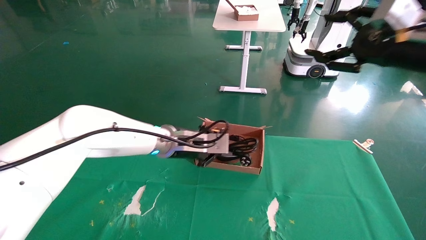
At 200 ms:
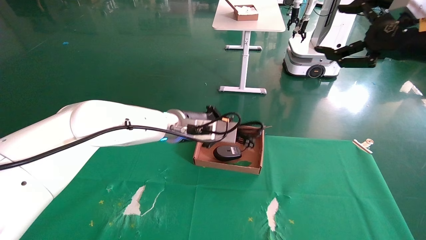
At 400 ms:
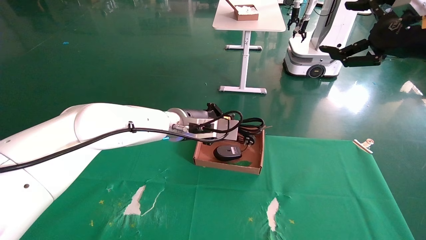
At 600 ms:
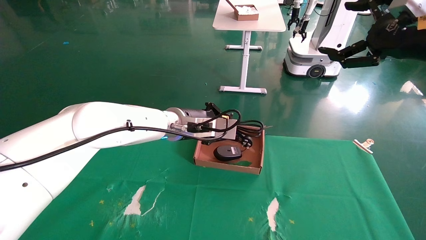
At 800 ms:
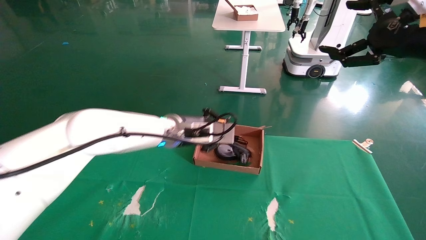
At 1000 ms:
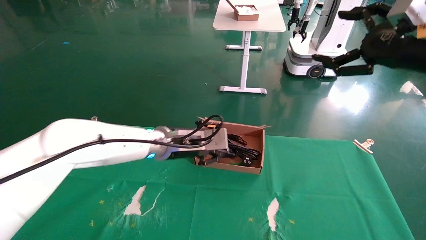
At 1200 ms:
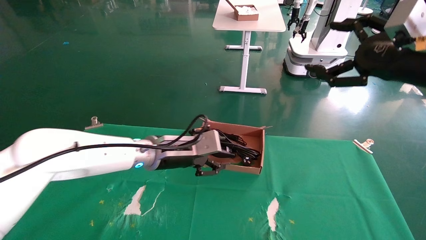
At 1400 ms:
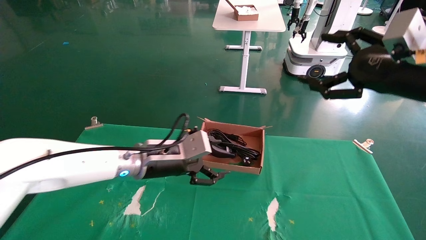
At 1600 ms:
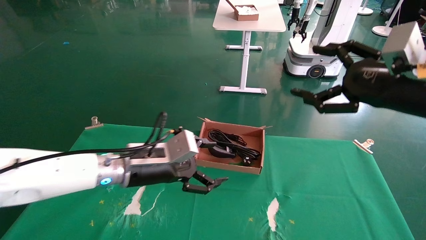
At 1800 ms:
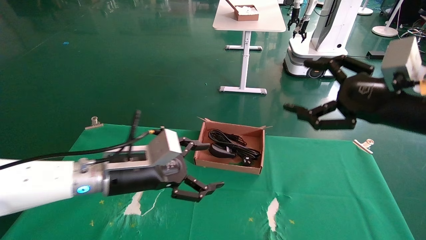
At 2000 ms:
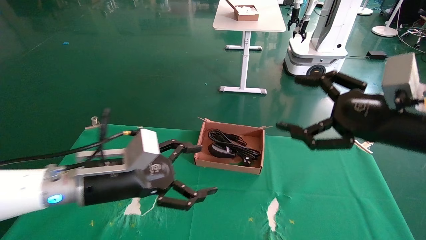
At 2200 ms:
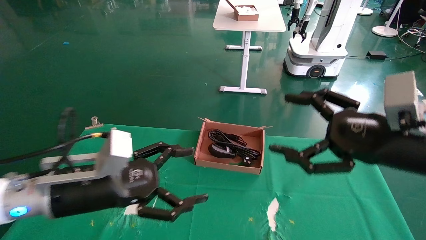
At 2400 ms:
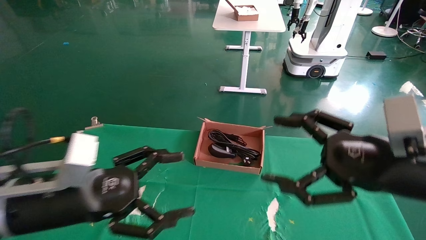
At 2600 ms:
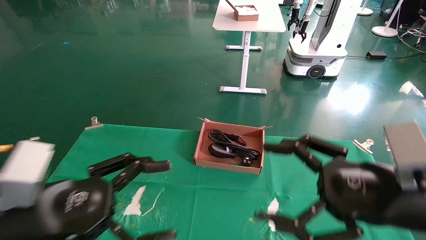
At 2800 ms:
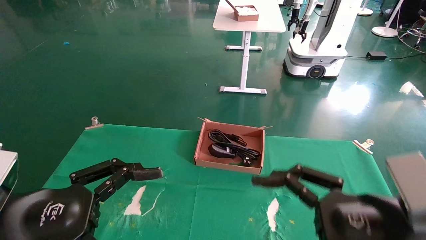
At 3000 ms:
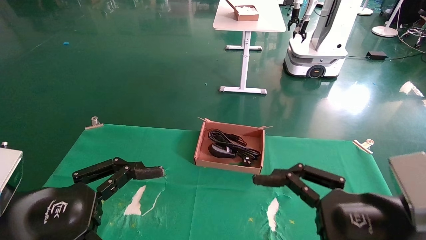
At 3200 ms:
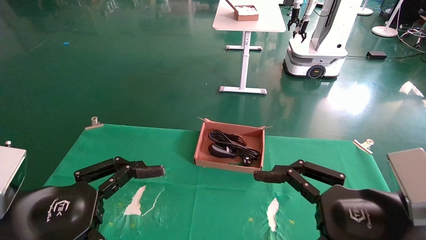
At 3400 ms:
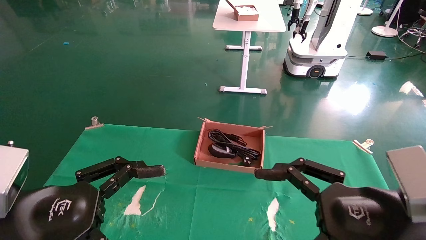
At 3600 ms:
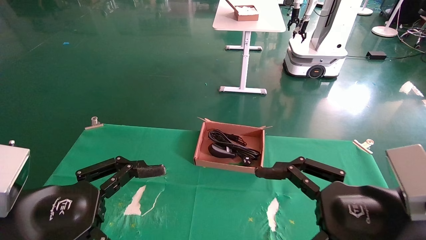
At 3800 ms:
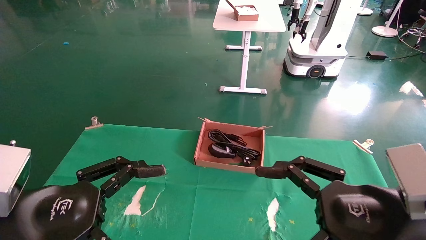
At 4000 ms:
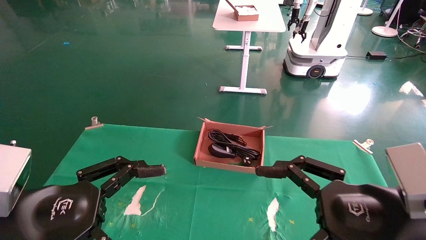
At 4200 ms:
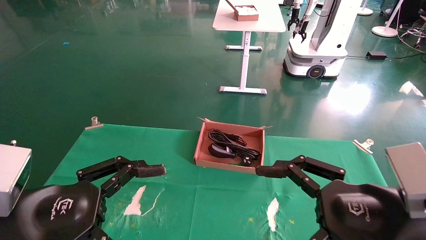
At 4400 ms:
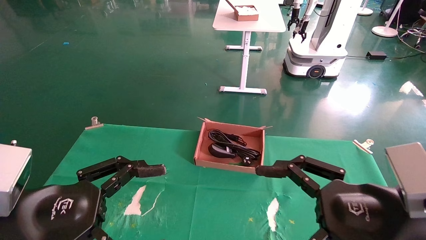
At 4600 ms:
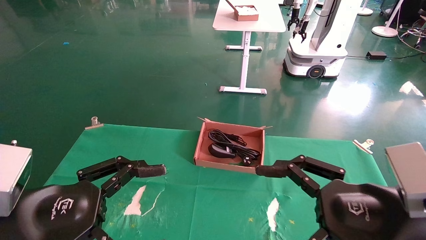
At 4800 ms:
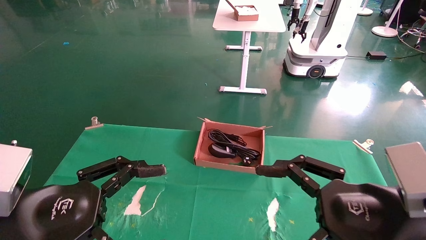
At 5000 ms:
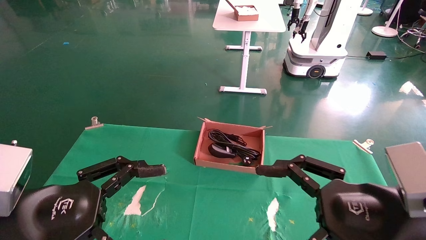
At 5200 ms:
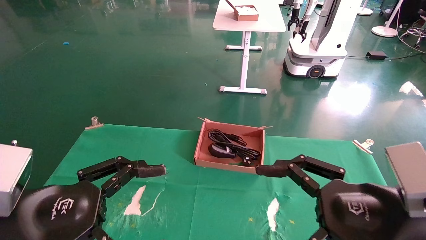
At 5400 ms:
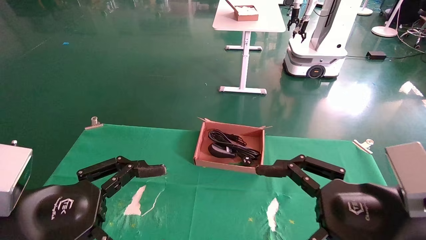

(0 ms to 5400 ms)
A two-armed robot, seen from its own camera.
0 ms - 1400 ms: The left gripper goes approximately 5 cm backward, and opens up. The right gripper moves about 5 cm, and opens its fingers.
1400 ms - 2800 ms: The left gripper travels backward and to the left by roughly 25 cm, and opens up; the right gripper heads downward, backward and to the left, covering roughly 20 cm.
2800 ms - 5400 ms: The two grippers keep their place.
